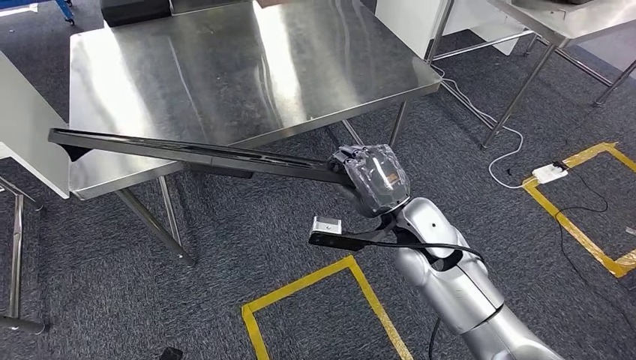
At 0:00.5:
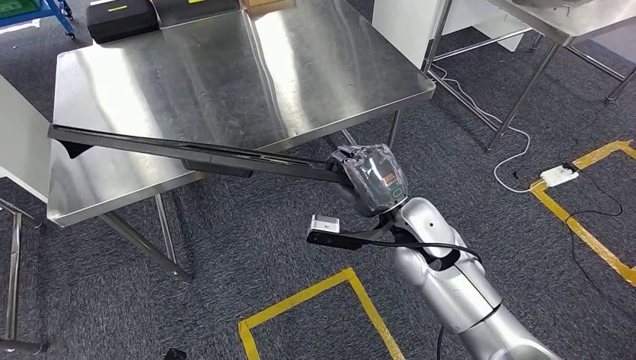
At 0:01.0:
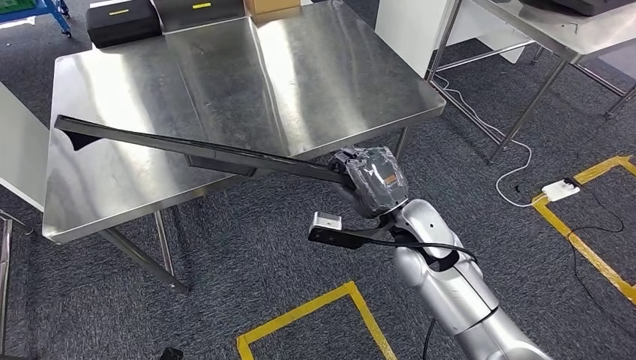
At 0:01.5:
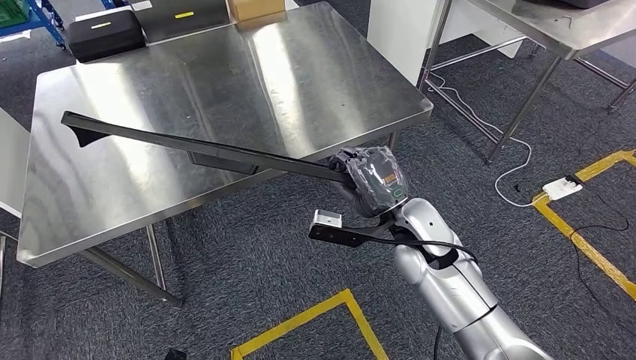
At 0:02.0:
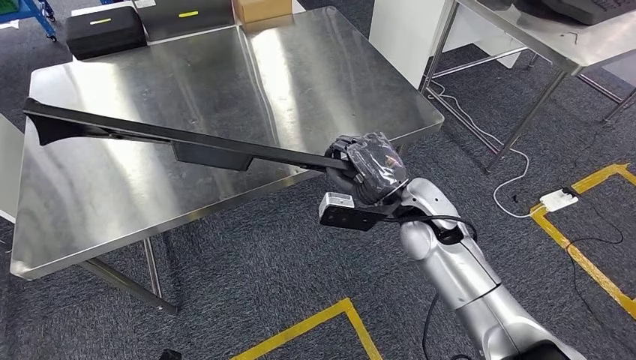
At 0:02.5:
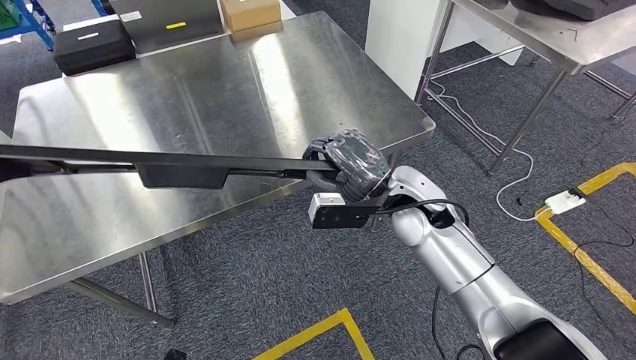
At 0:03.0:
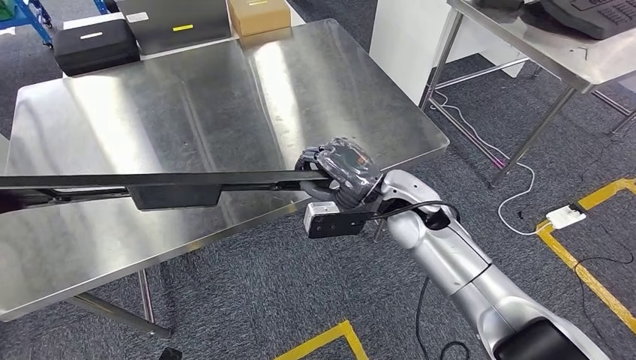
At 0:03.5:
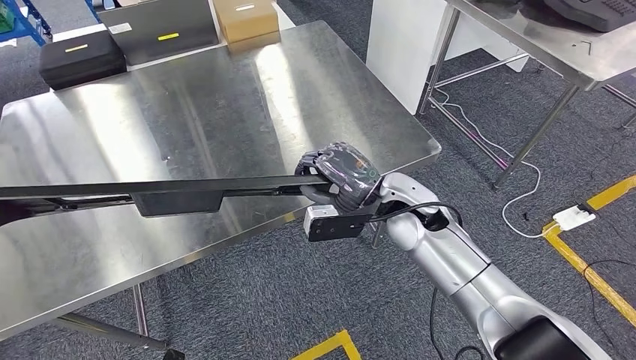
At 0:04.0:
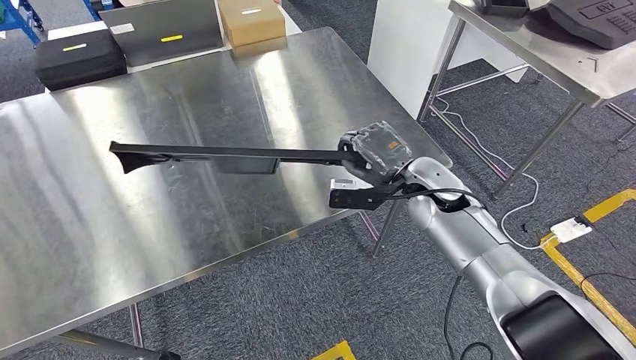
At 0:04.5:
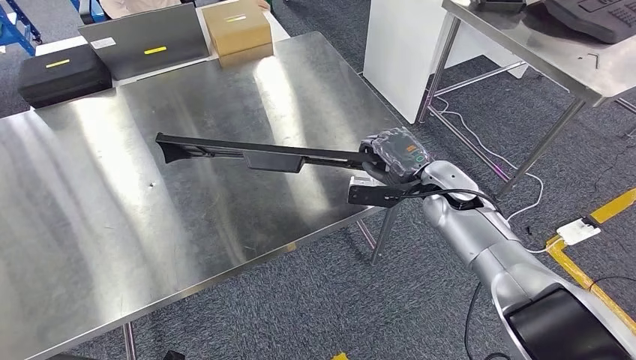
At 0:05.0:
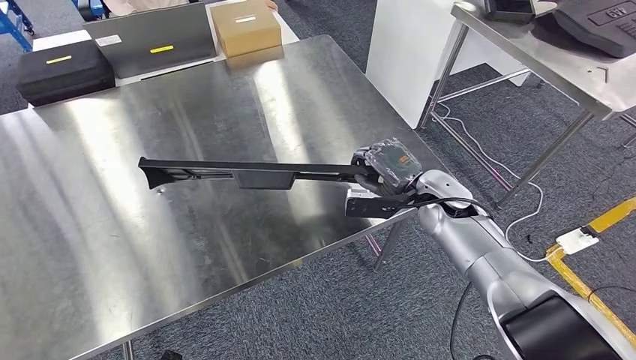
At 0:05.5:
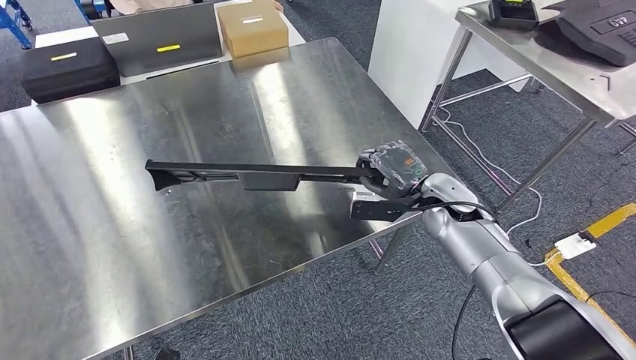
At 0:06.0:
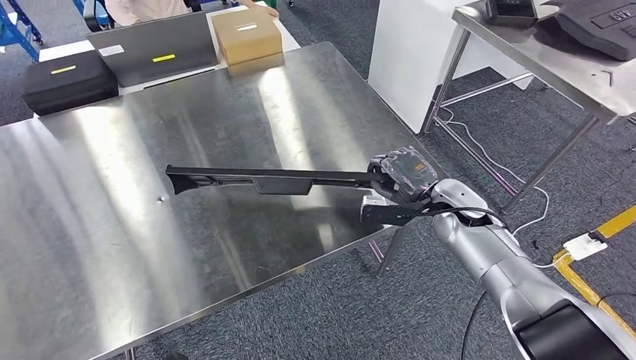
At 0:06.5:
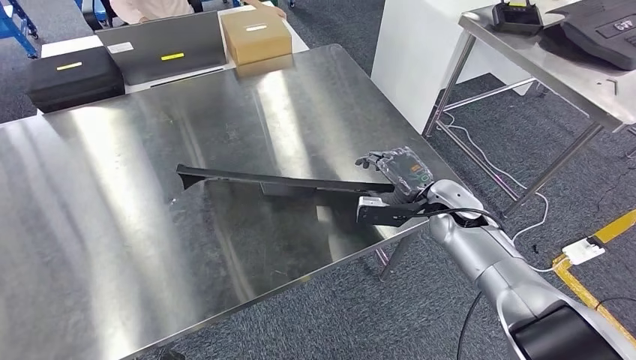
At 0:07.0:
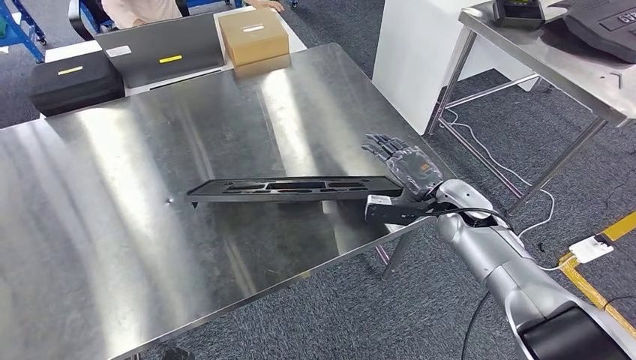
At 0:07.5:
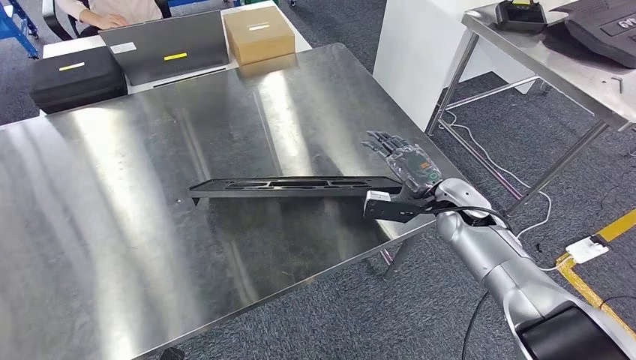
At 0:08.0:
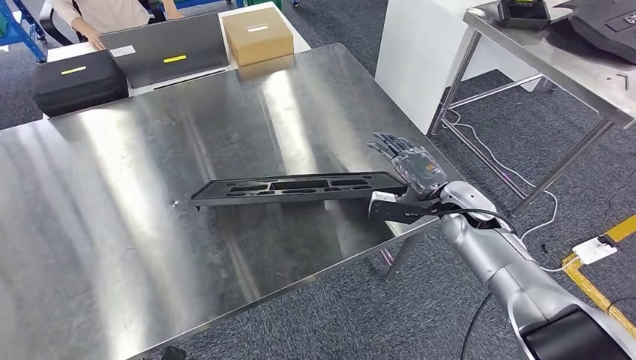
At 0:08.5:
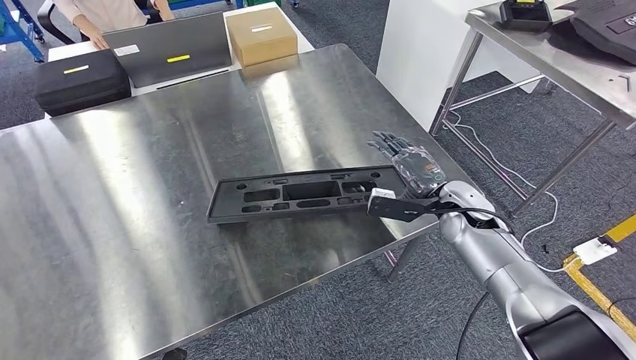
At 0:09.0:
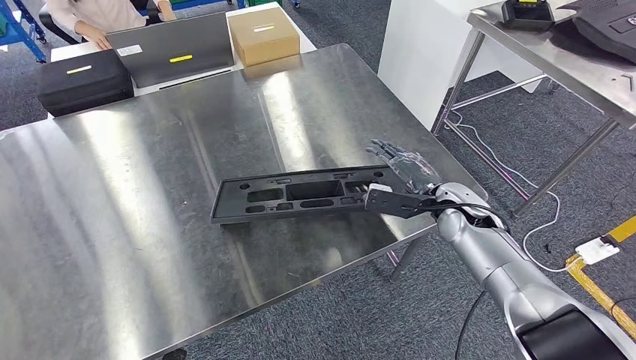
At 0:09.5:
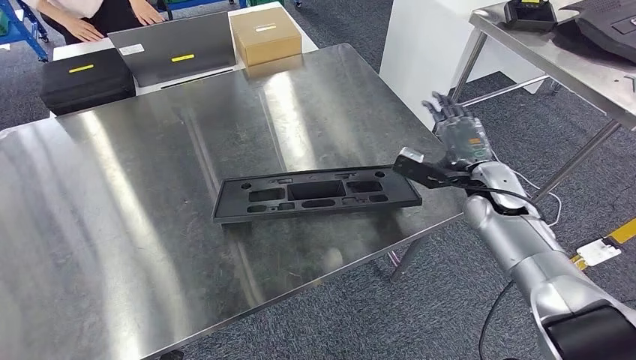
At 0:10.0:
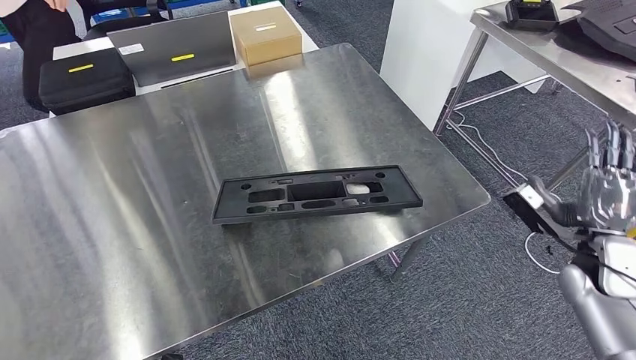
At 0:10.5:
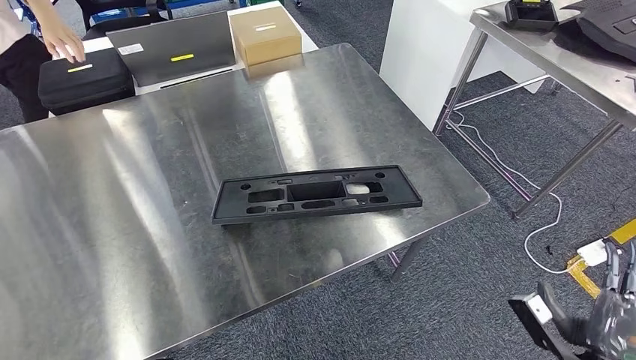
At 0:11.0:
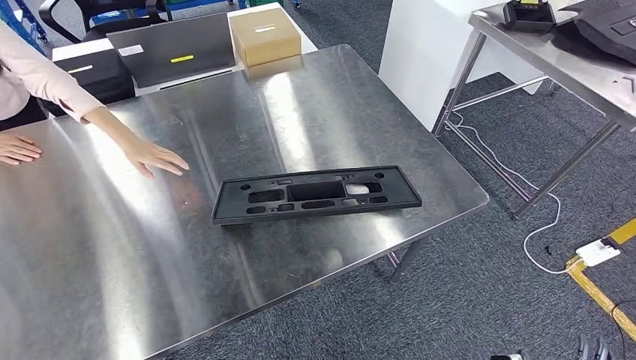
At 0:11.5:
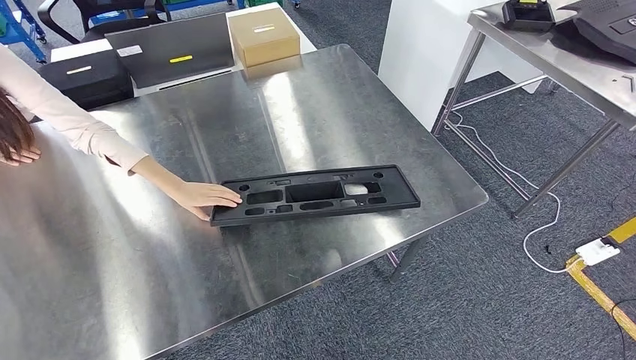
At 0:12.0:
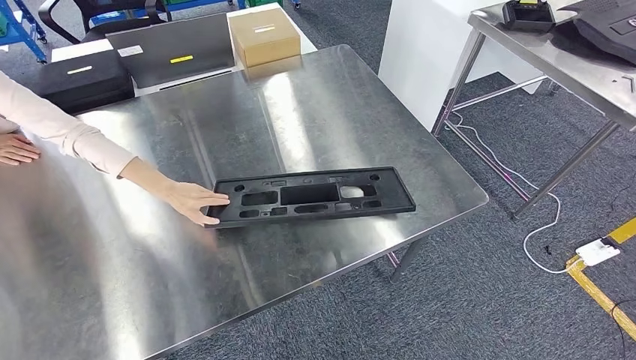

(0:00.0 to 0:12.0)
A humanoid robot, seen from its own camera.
Step, 0:00.0 - 0:10.5: Insert the large material into the corresponding hole on the workbench.

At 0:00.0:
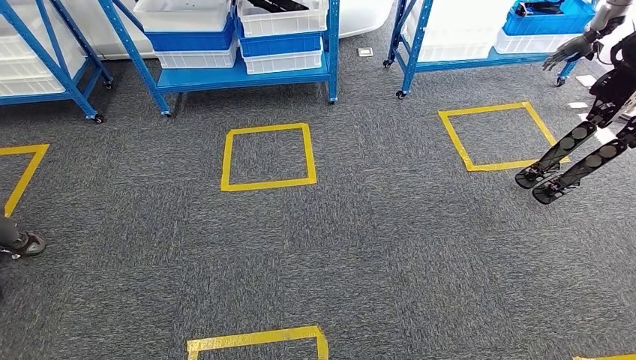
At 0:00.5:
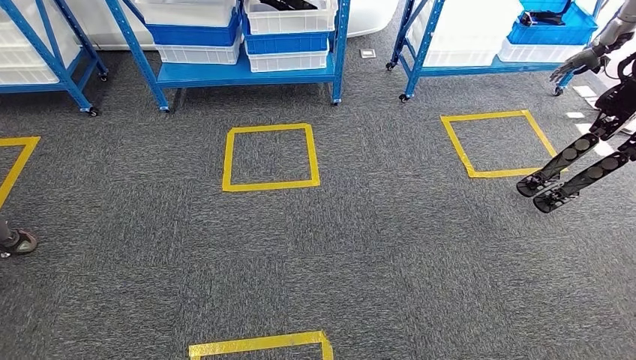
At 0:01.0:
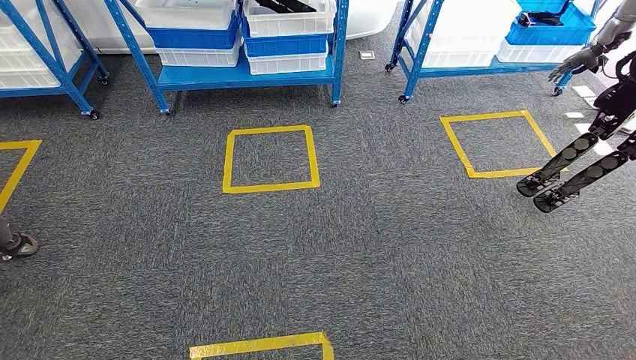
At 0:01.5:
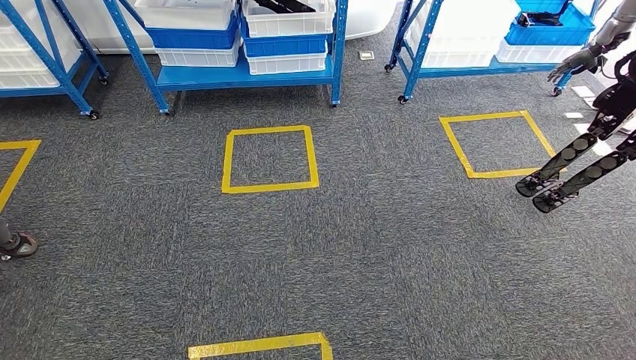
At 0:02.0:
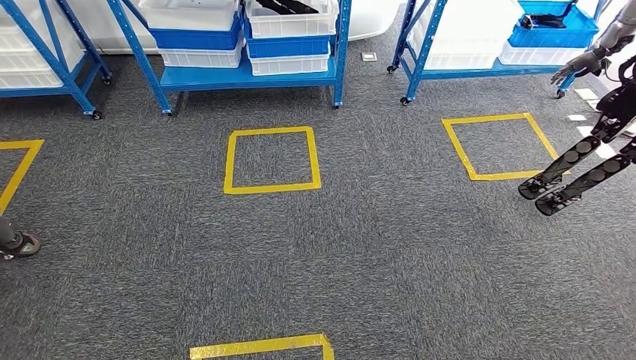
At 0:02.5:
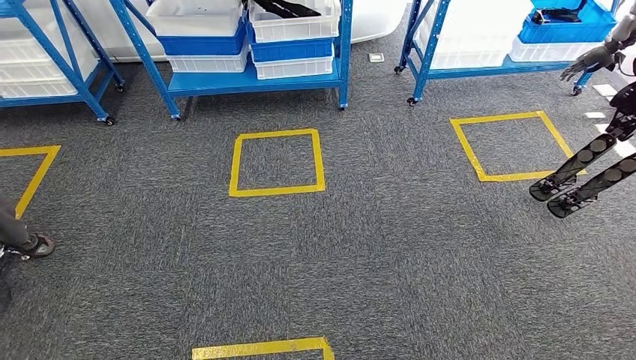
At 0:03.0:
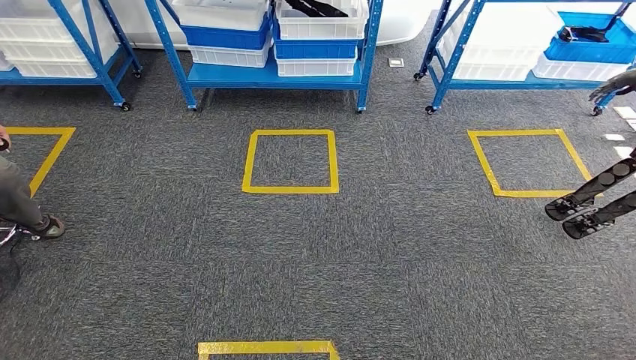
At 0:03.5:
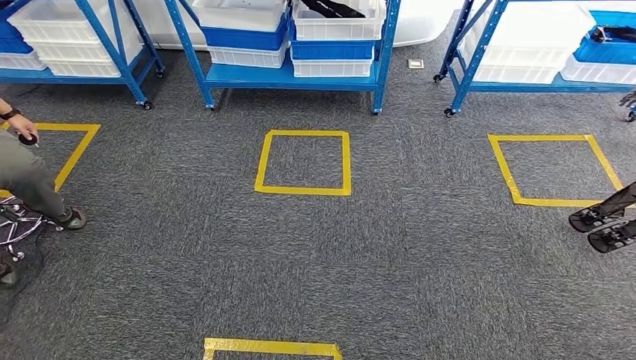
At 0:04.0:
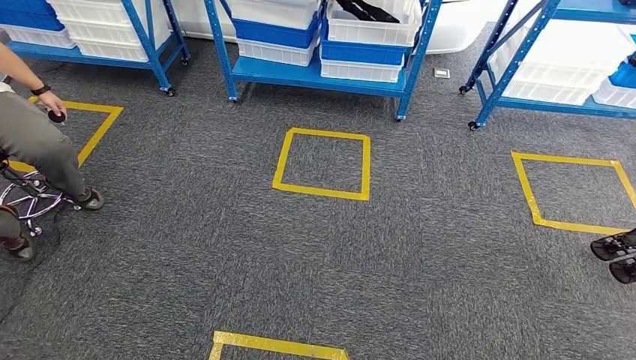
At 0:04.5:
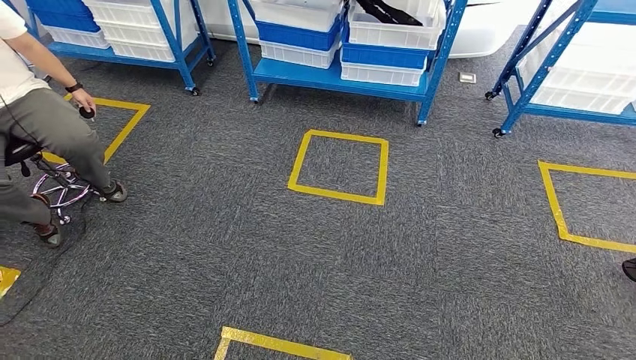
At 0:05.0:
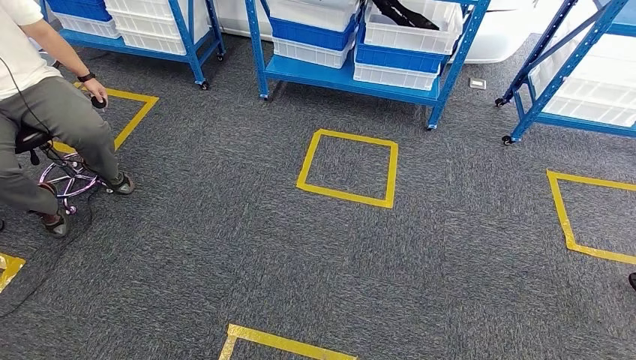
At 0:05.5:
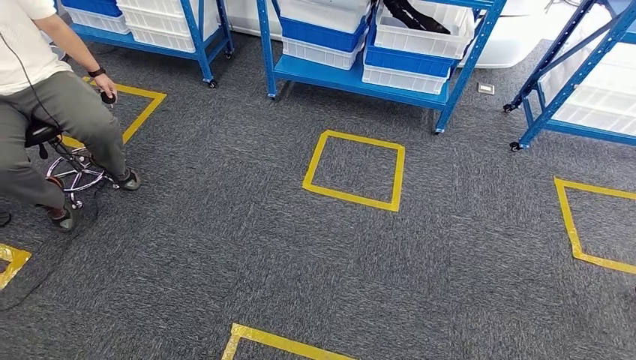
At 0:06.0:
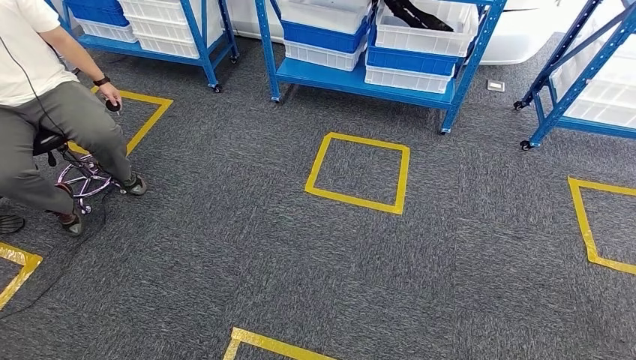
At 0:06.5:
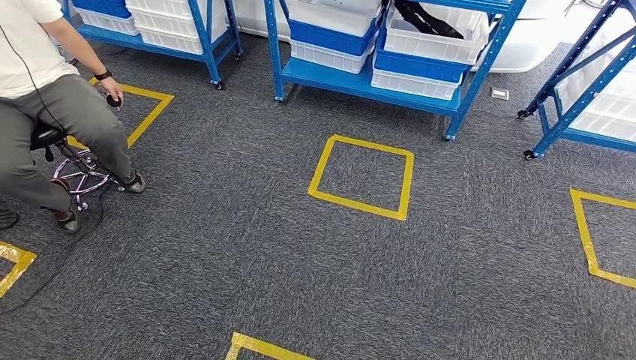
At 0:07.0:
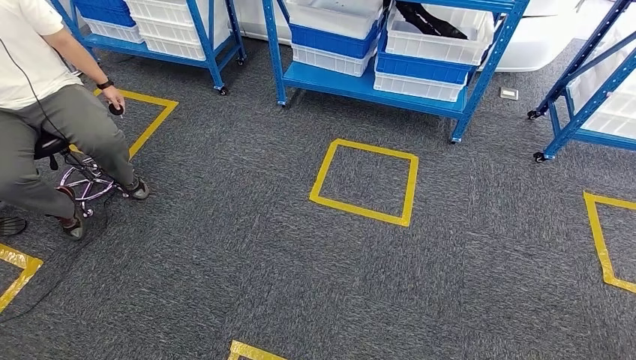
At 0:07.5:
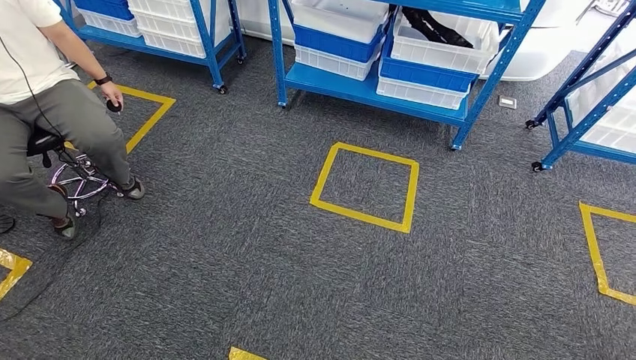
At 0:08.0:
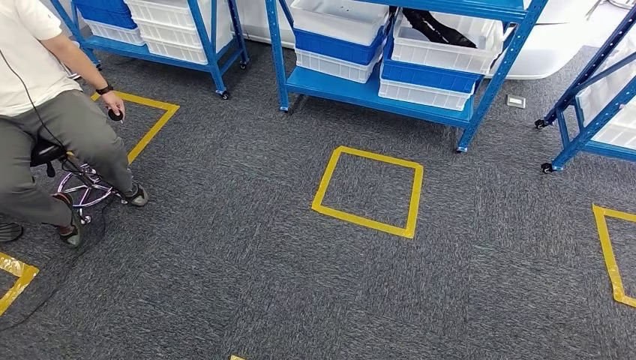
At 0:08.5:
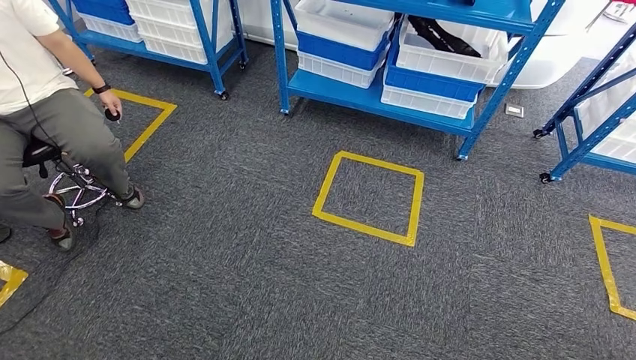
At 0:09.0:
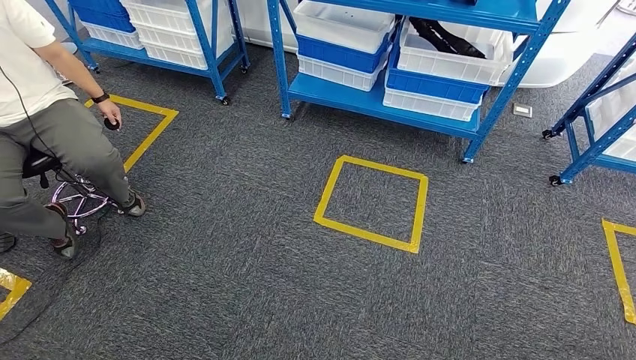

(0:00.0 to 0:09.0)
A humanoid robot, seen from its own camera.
Step, 0:00.0 - 0:03.5: Move to the initial position of the shelf.
